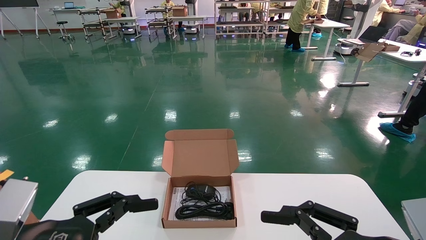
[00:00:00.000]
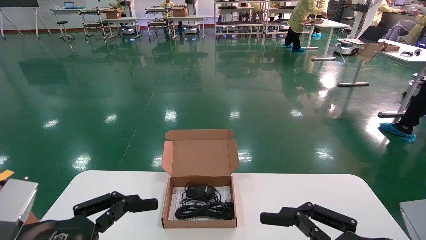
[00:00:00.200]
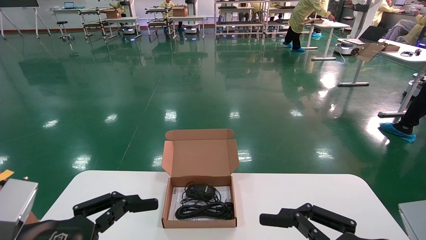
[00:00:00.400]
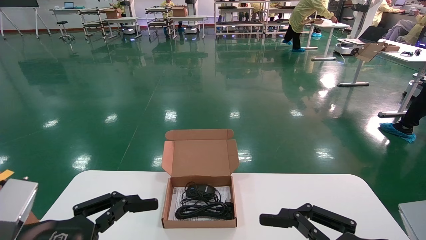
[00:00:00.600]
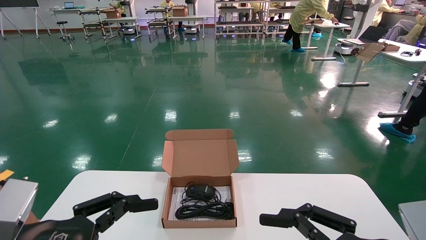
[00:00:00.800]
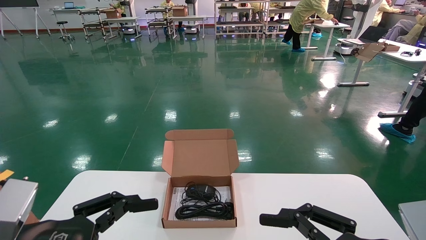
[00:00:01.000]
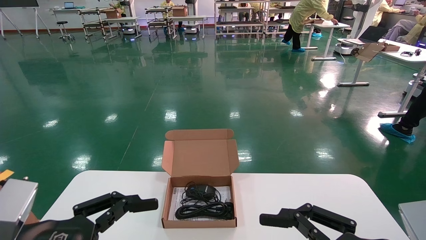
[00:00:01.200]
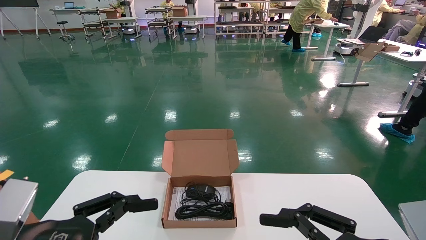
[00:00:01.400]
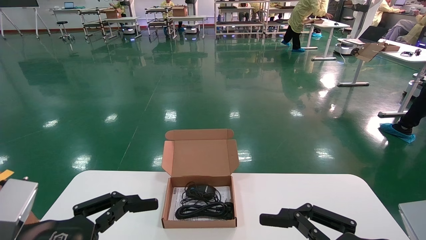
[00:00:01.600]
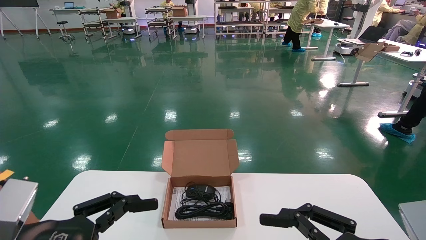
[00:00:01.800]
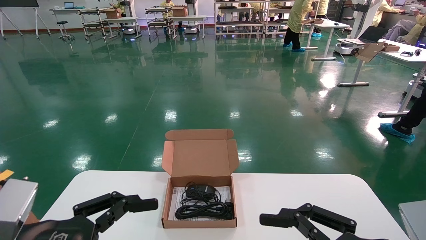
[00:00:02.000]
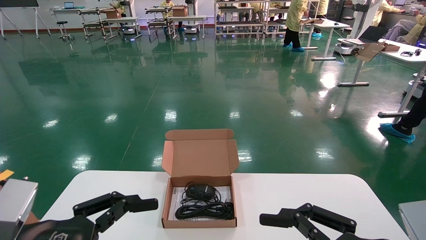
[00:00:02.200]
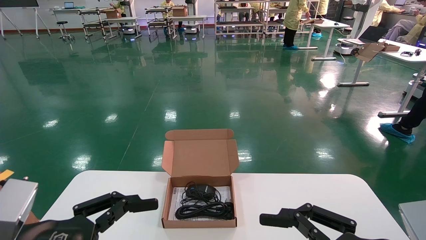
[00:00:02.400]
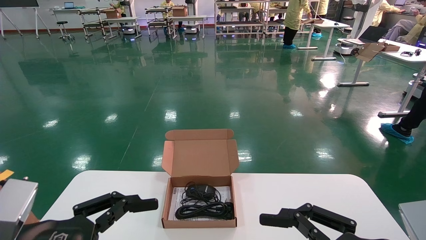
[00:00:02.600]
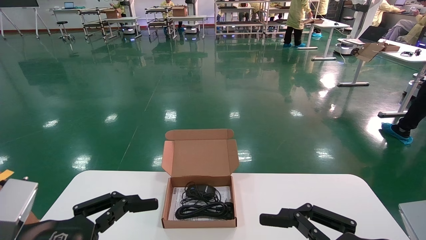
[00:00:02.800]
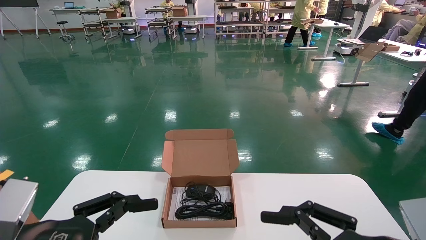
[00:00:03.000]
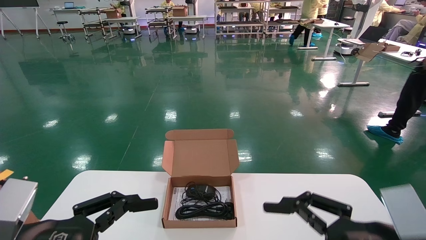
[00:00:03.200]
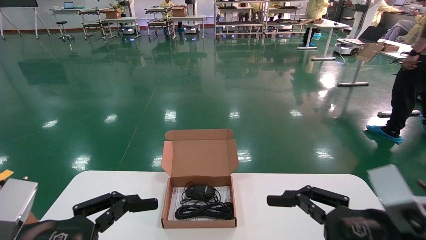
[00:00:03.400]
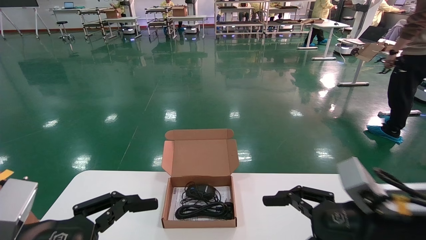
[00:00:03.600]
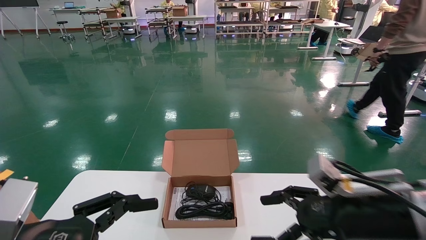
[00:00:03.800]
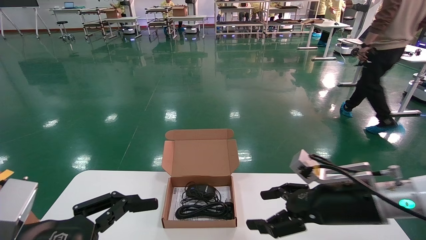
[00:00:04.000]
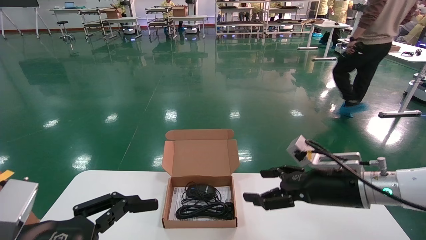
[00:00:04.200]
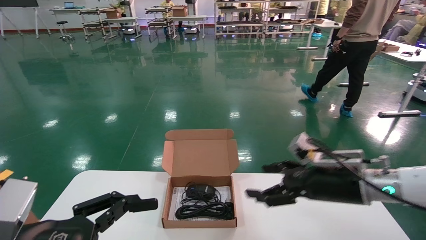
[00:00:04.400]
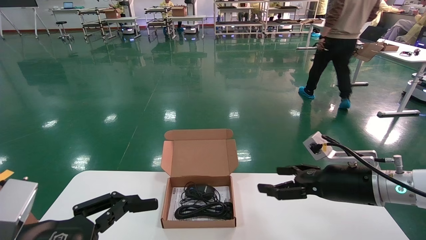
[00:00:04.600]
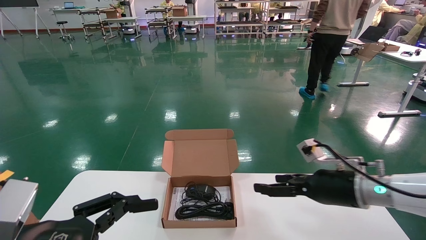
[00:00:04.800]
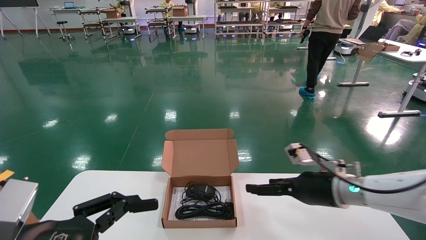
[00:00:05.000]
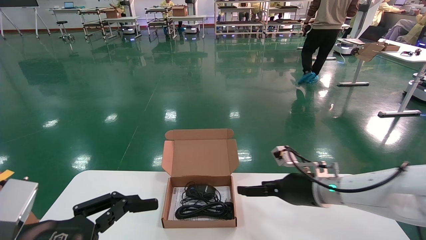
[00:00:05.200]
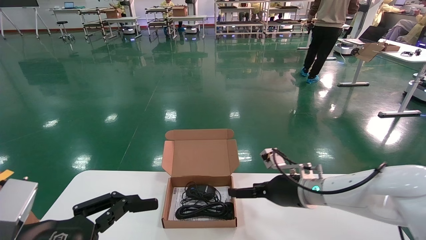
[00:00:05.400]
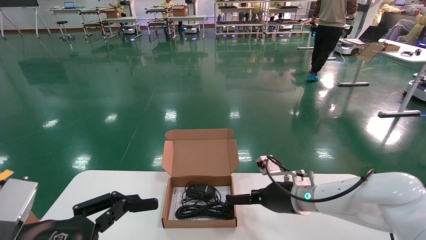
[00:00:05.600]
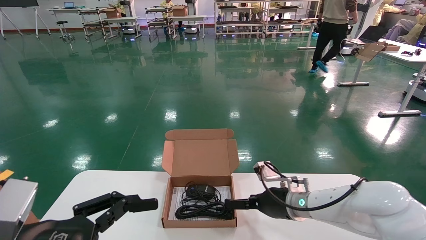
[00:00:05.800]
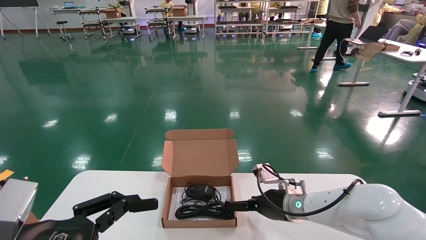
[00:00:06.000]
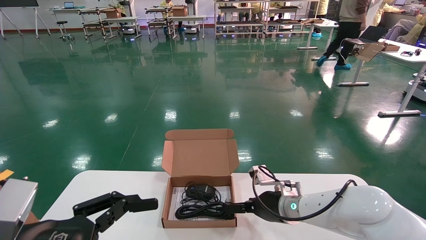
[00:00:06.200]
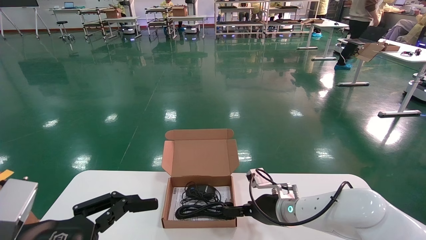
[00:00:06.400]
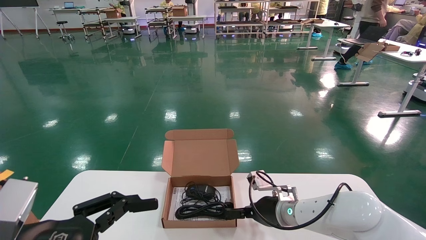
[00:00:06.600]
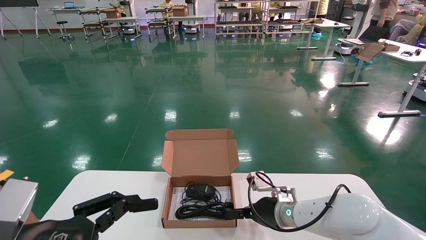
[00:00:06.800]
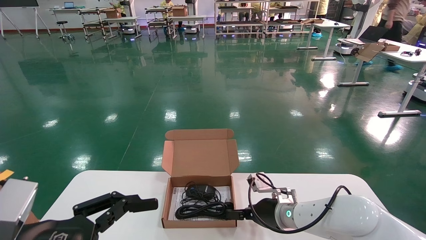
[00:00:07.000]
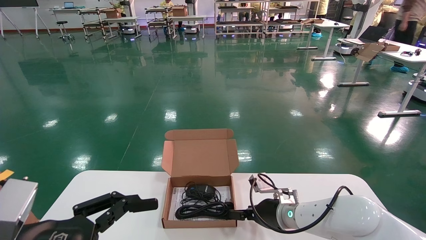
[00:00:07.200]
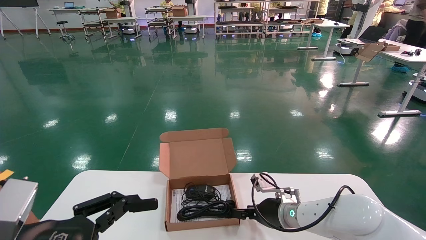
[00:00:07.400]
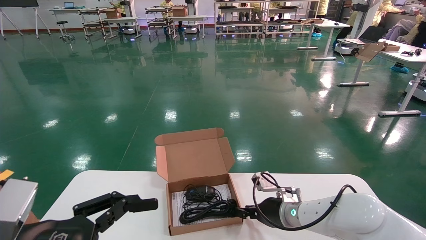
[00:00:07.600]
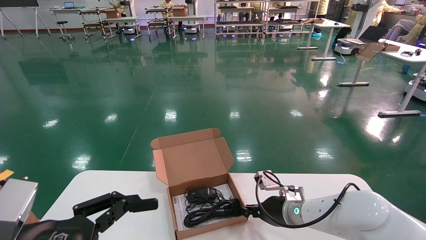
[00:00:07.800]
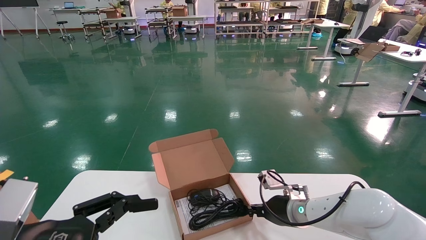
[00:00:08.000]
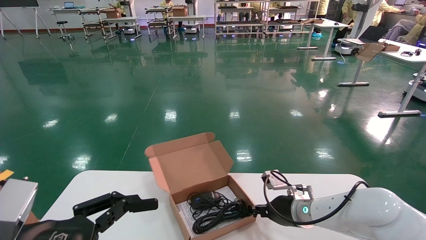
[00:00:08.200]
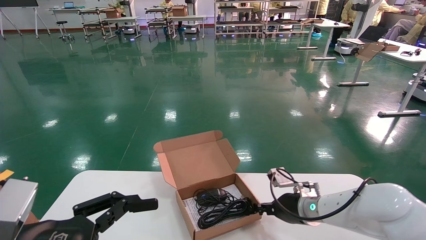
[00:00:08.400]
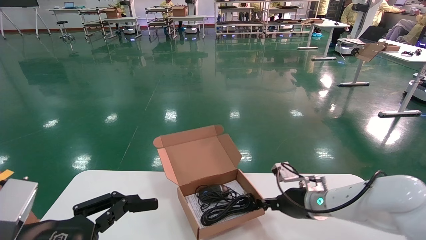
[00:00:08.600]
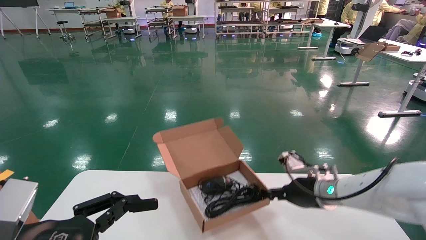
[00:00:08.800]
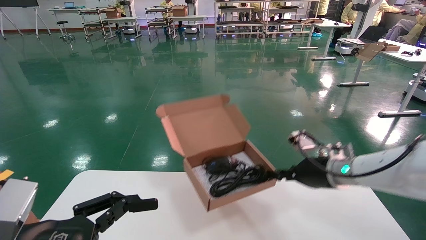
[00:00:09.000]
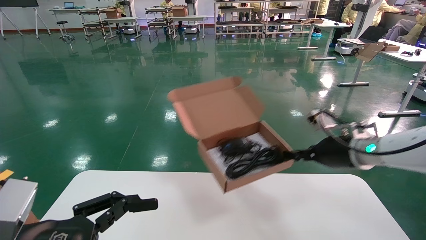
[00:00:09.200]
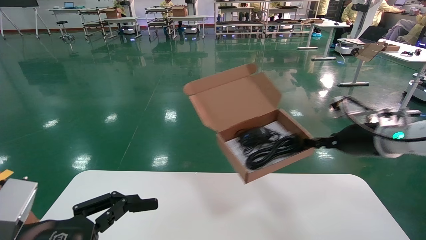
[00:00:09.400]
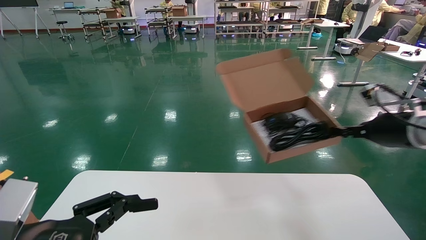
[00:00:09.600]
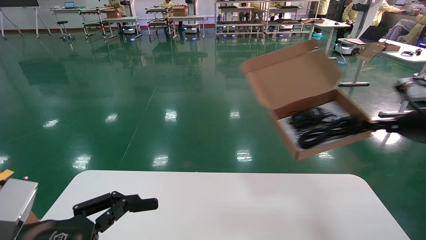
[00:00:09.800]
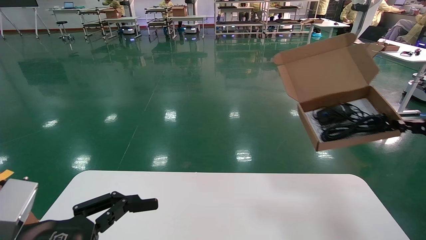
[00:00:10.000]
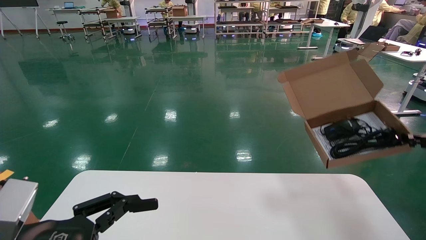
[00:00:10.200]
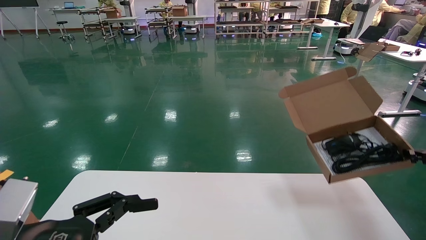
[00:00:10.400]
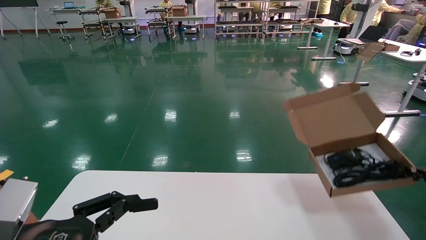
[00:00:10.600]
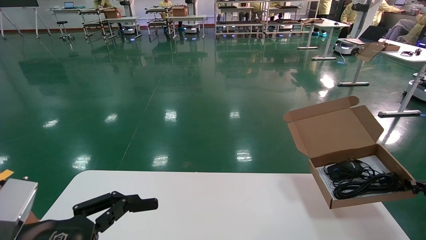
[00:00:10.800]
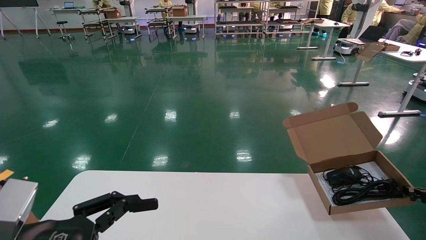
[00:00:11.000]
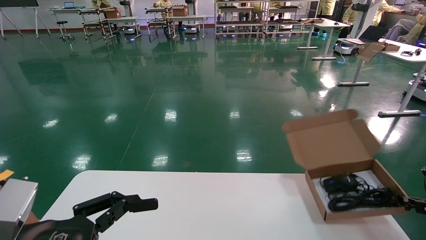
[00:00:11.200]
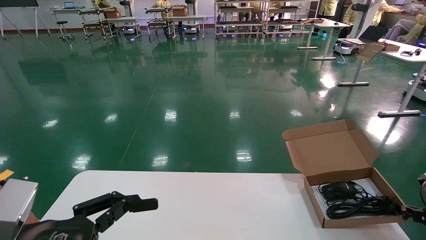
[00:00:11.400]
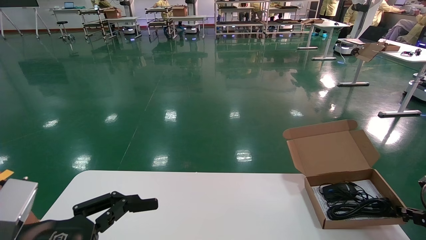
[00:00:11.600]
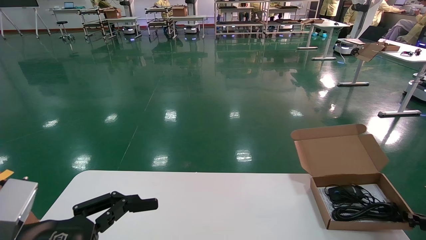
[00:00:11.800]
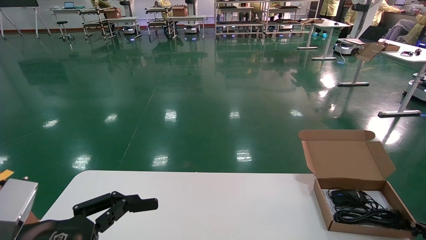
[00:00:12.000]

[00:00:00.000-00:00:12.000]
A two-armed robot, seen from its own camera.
Task of the whole recording: move the position of the storage box with accessories on the table.
Step, 00:00:03.200 to 00:00:08.200: Grab and pick up the open mouse box from the accessory packaging area.
00:00:00.000 to 00:00:03.000: Both grippers stay put.
00:00:03.000 to 00:00:04.400: The right gripper shifts approximately 20 cm forward.
00:00:04.400 to 00:00:06.000: The right gripper moves to the left, forward and downward, some 15 cm.
00:00:06.000 to 00:00:07.600: The right gripper closes.
00:00:07.600 to 00:00:09.000: The right gripper heads upward and to the right, covering about 15 cm, and closes.
00:00:09.000 to 00:00:10.400: The right gripper travels to the right by approximately 25 cm.
00:00:10.400 to 00:00:12.000: The right gripper goes roughly 15 cm downward.

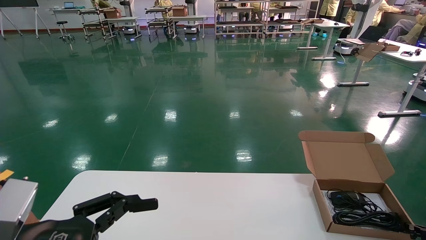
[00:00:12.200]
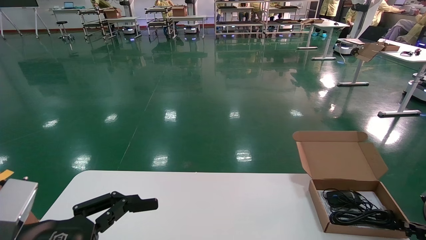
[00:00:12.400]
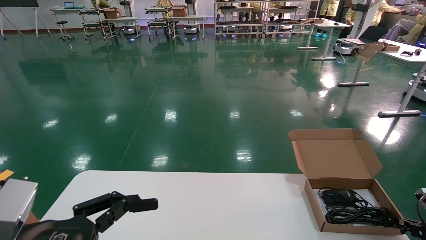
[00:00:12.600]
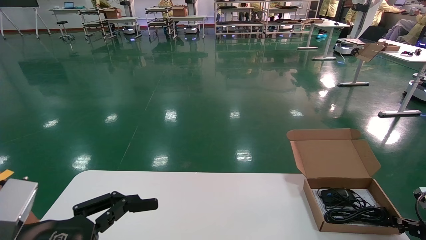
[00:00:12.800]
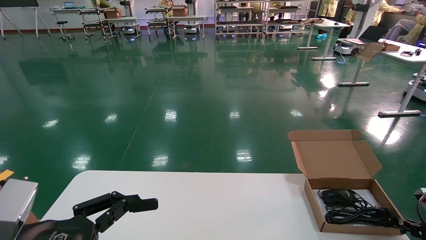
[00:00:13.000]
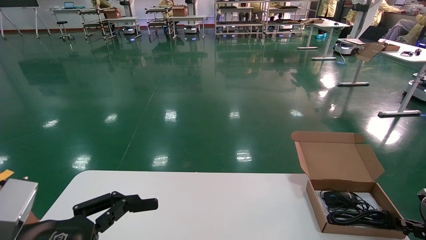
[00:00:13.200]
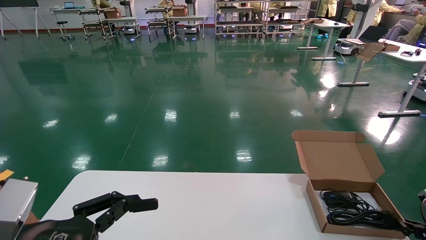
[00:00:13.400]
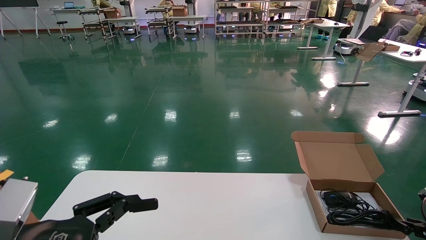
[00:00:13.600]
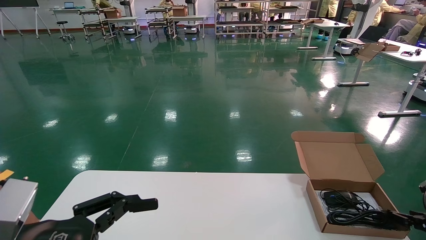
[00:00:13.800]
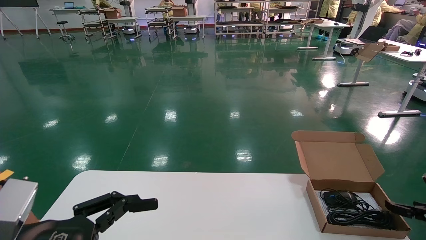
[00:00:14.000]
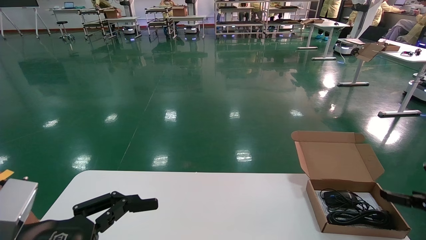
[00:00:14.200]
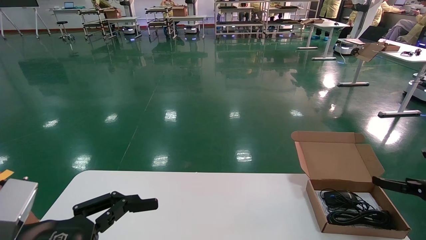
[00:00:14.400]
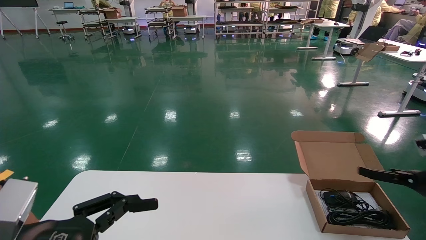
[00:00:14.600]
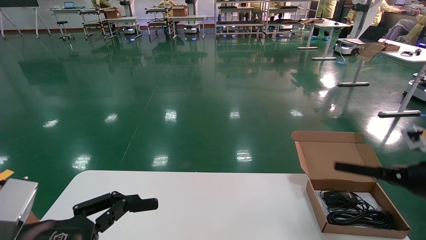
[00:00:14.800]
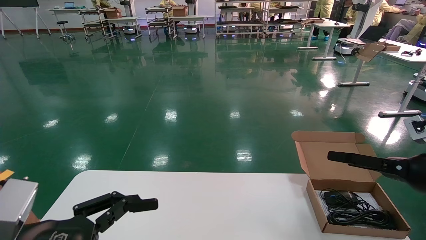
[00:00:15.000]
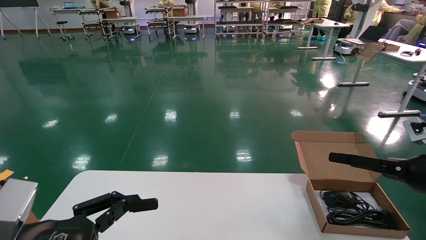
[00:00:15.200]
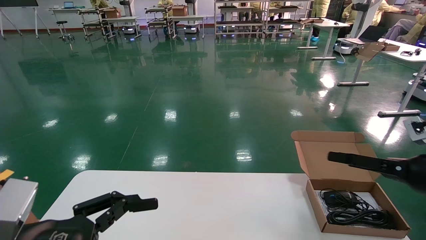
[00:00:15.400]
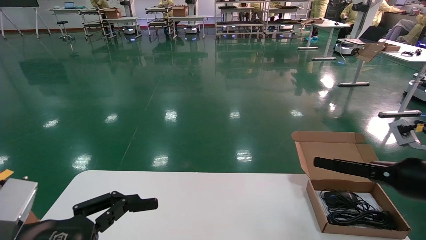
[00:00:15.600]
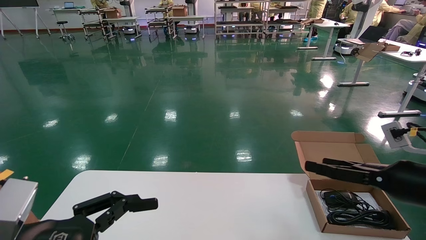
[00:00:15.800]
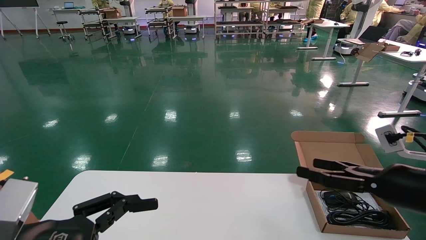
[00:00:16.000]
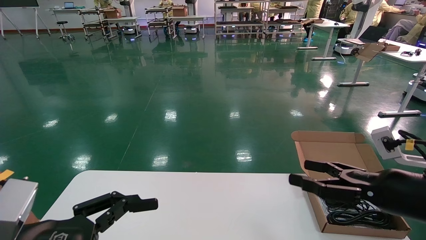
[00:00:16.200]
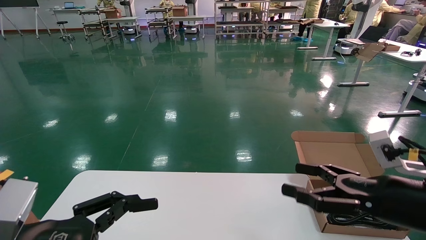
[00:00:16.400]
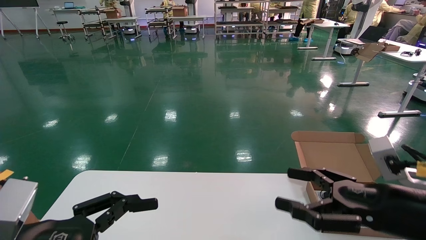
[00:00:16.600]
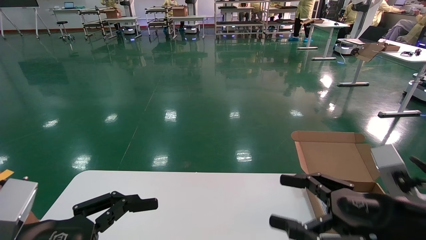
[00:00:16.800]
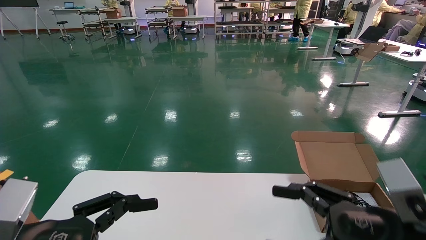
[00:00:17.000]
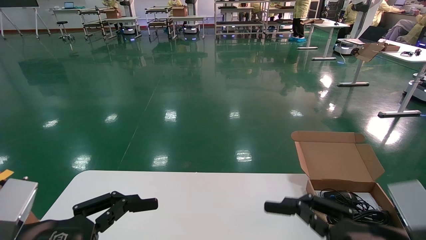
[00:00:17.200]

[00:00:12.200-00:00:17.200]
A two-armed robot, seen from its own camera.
Task of the whole recording: move the position of the storage box with accessories on the table.
00:00:12.200 to 00:00:13.800: There are only small adjustments of the grippers.
00:00:13.800 to 00:00:15.600: The right gripper travels upward, to the left and backward by approximately 20 cm, and opens.
00:00:15.600 to 00:00:17.200: The right gripper shifts approximately 20 cm backward and to the left.
